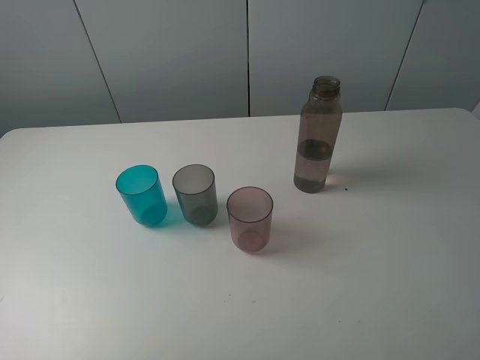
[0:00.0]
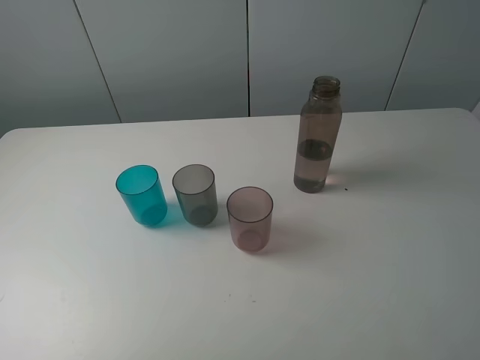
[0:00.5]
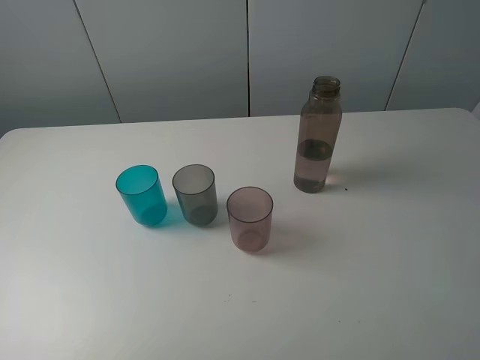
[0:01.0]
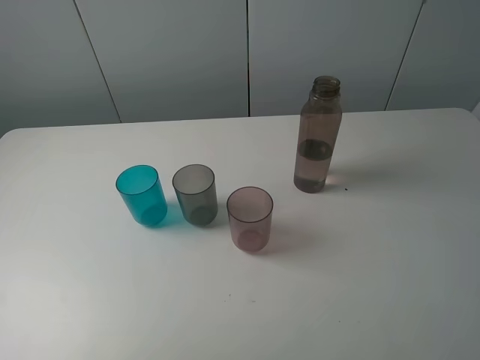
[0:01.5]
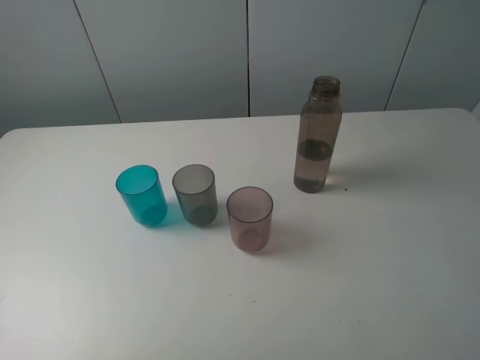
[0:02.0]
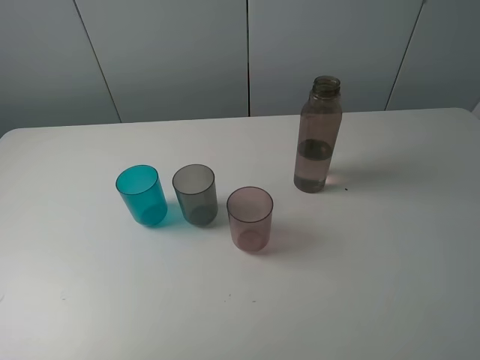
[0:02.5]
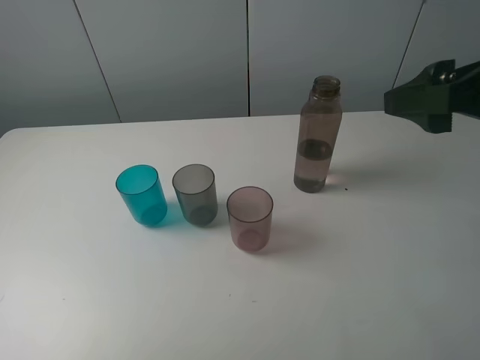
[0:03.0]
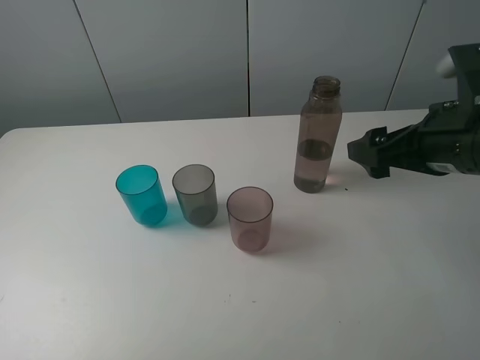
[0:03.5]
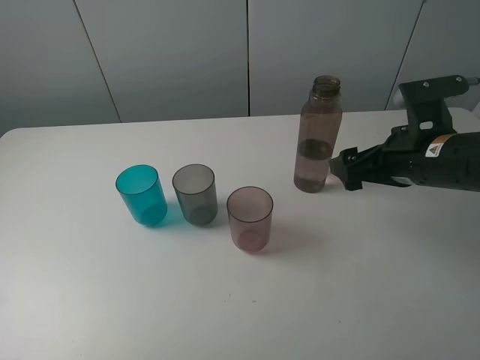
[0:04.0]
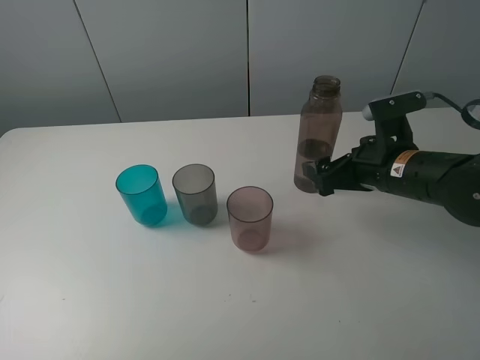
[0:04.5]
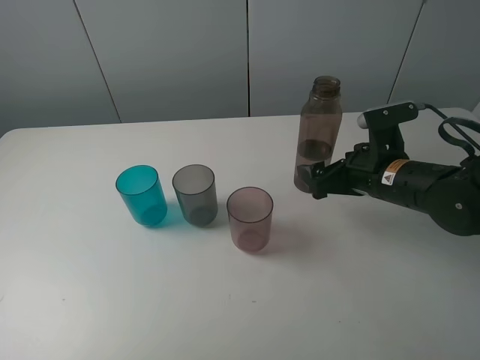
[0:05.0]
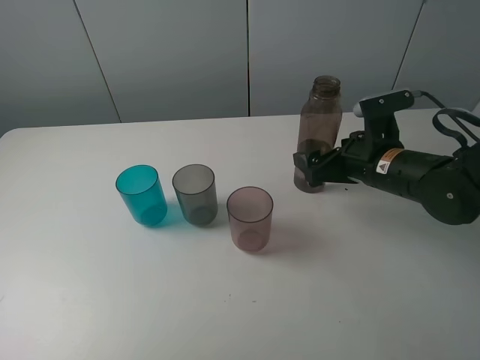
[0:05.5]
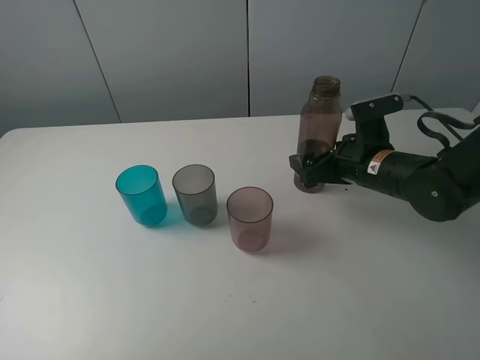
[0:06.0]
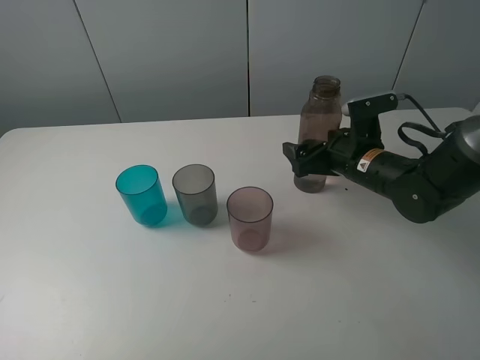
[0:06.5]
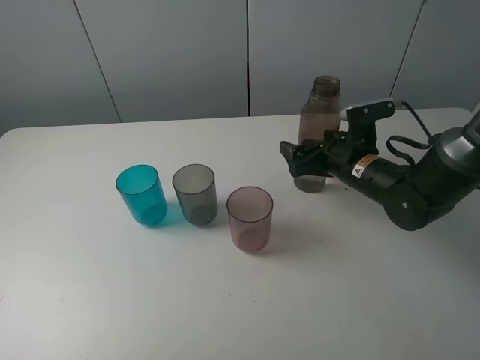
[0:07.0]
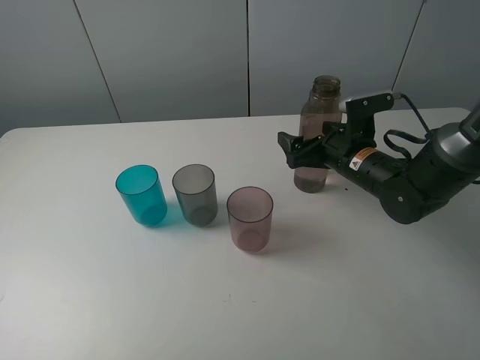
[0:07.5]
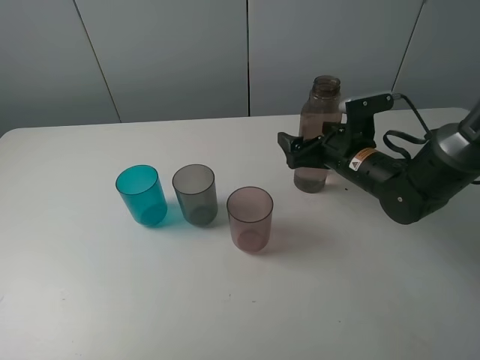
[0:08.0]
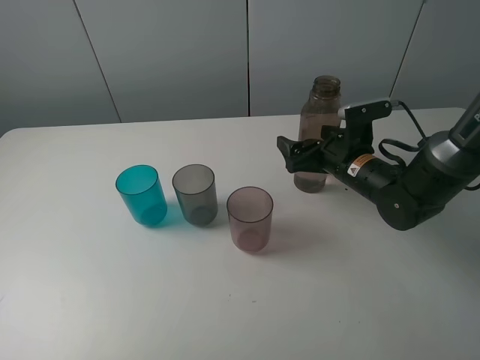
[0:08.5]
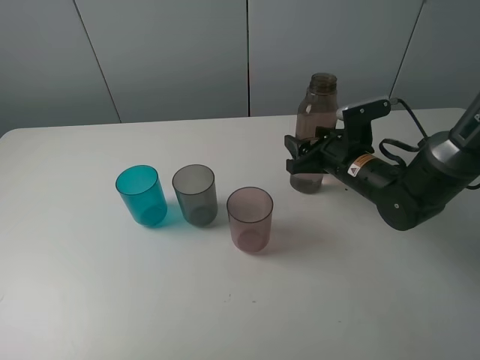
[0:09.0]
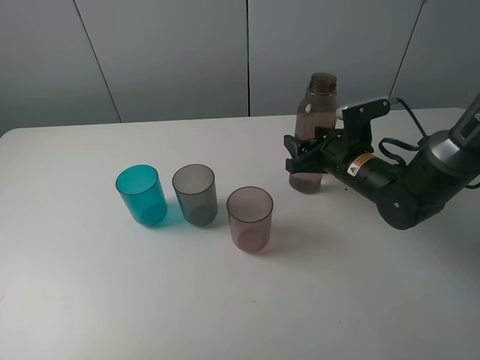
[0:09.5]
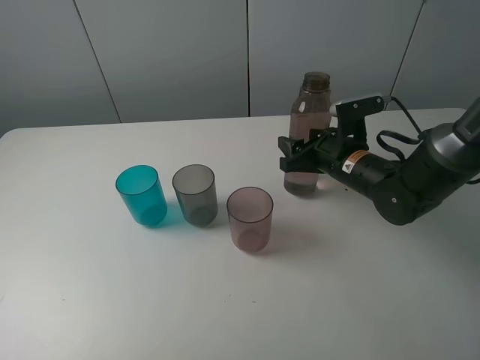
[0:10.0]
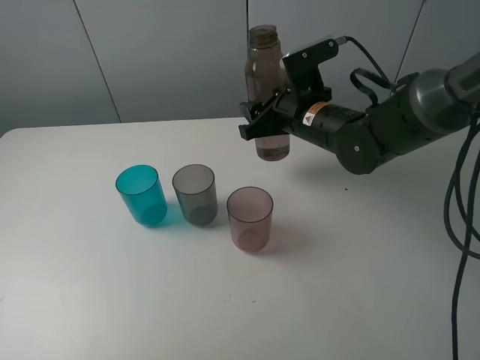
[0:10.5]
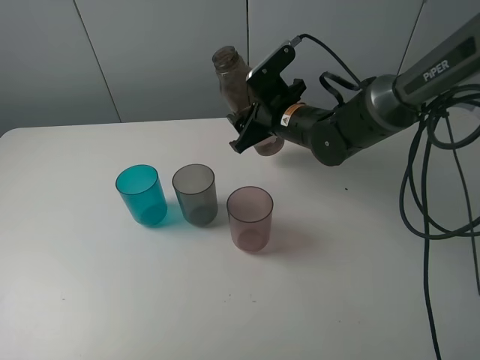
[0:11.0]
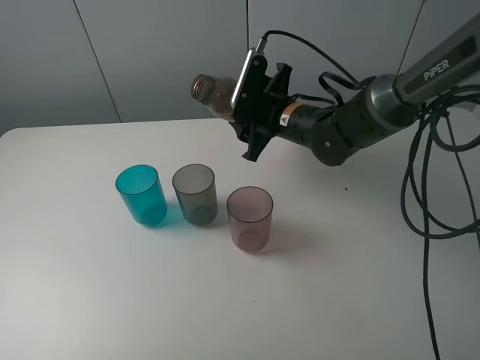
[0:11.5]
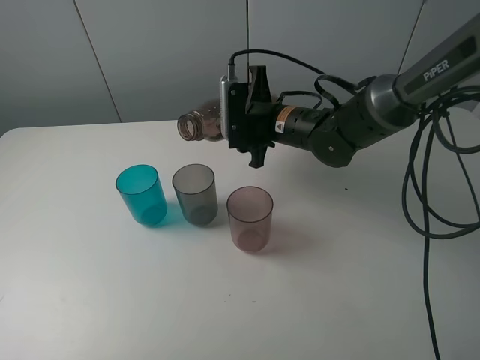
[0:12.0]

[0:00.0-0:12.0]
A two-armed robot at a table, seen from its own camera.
Task of the whole recording: pick up the bottle filled with water and pour water into the middle cup of the three cups.
Step, 0:00.0 to 0:09.5: Grasp the brown bottle with the right gripper.
0:02.0 to 0:04.0: The right gripper is displaced forward and downward by about 30 cm.
0:04.0 to 0:06.0: The right gripper moves downward and forward, some 10 cm.
0:06.0 to 0:08.0: The grippers stay close to where they were, moving slightly.
0:08.0 to 0:10.0: The right gripper closes its fingers.
0:10.0 to 0:12.0: The right gripper shifts approximately 10 cm to the left.

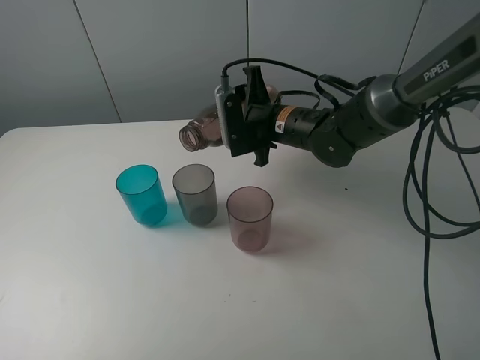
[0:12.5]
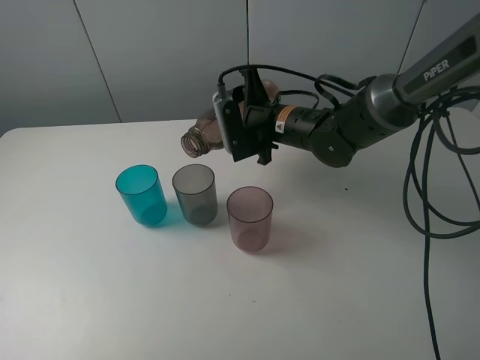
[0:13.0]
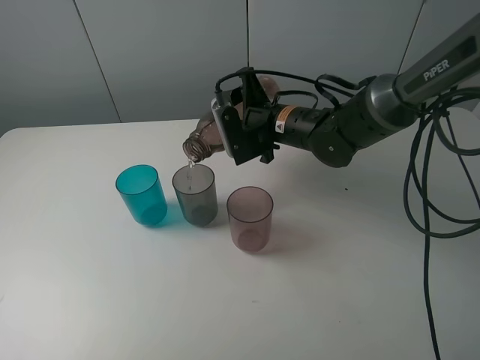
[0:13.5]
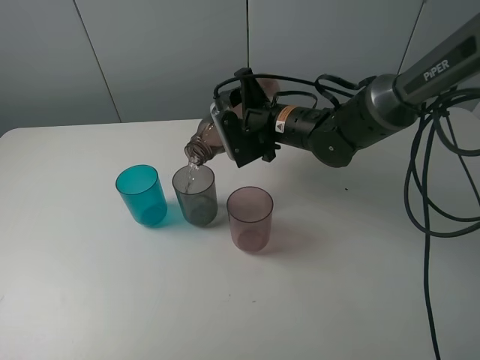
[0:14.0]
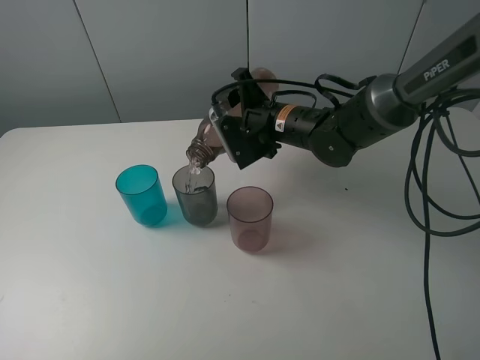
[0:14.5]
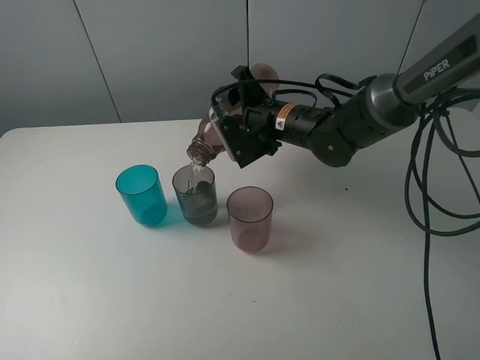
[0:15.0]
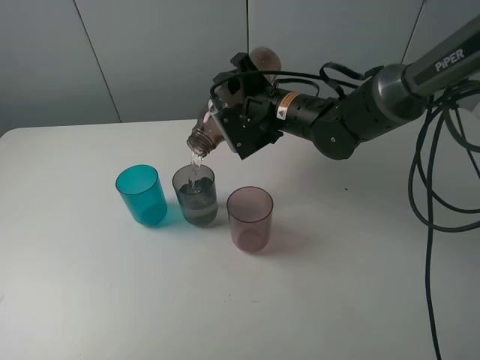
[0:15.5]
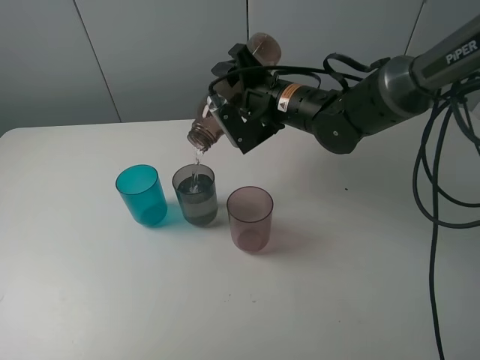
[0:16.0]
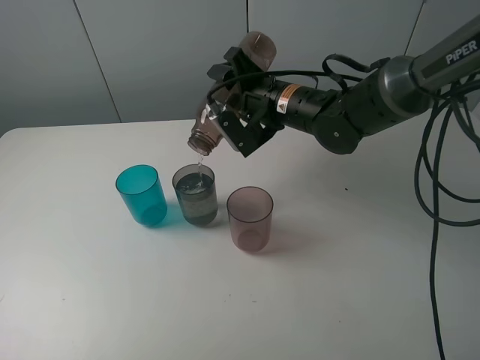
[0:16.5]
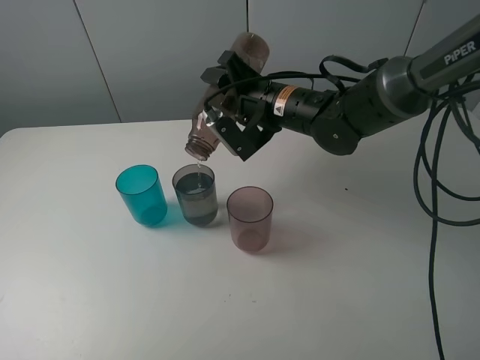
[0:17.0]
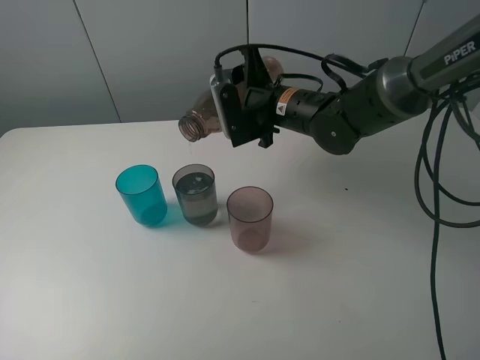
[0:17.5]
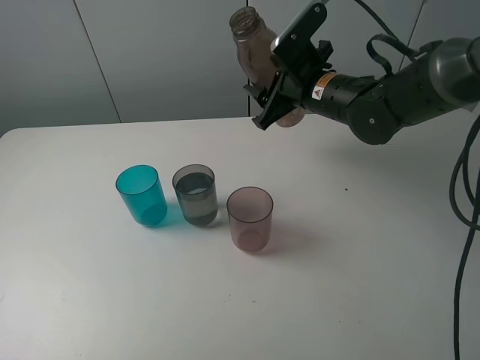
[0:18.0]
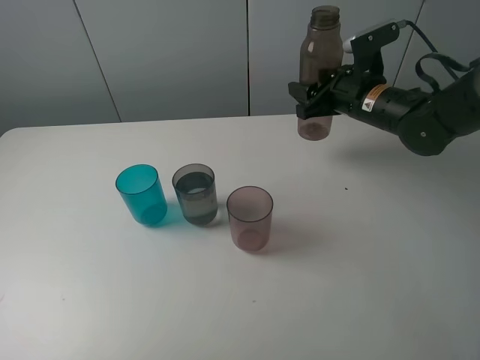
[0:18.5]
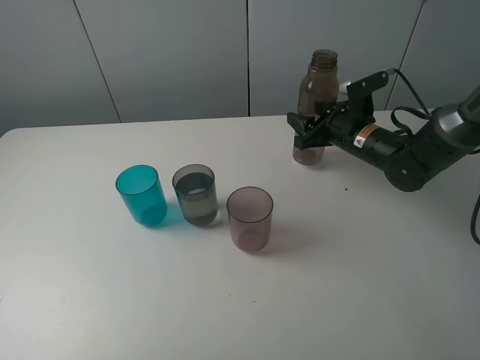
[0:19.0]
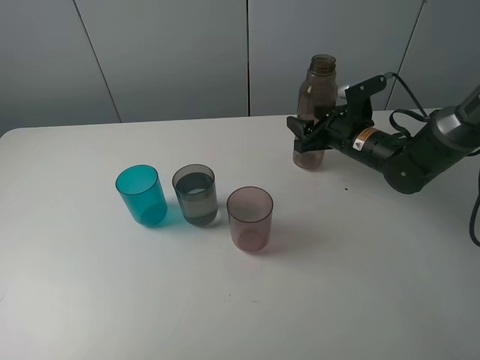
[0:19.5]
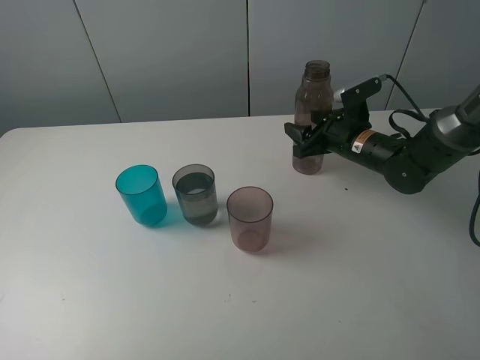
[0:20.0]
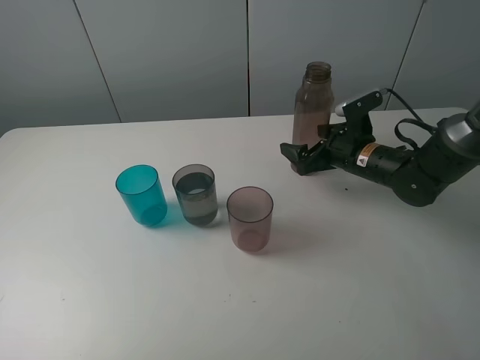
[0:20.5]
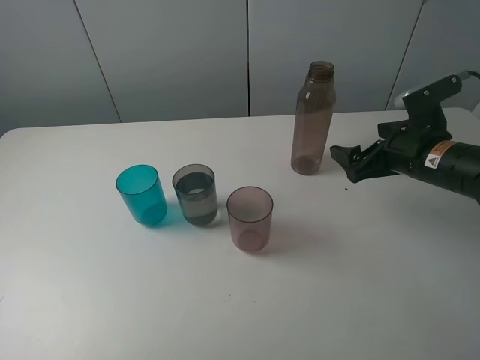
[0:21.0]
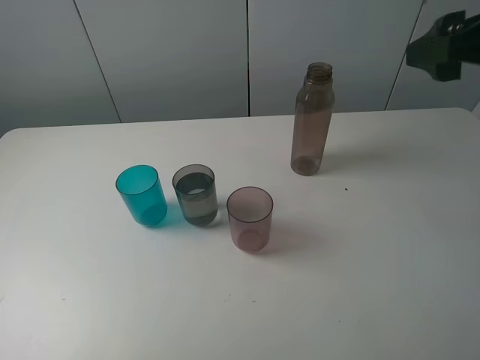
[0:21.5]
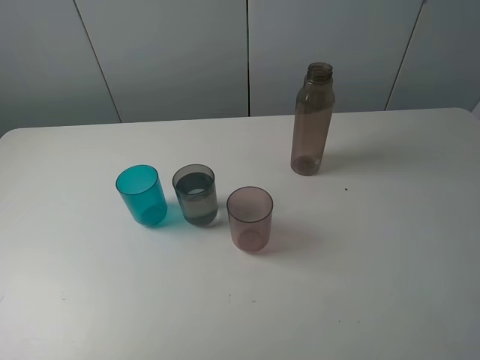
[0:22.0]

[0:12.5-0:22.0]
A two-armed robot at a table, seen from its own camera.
Task of the whole recording: pick up the bottle filled with water and pour water into the middle cup of the three cups.
Step, 0:12.5 to 0:18.0: Pour water from brown bottle to grey cup with the right gripper.
Step, 0:18.5 to 0:20.5: Place the brown bottle with the right gripper.
0:12.5 to 0:14.5: The grippers move only a little.
0:14.5 to 0:16.5: There are only small adjustments of the grippers.
0:16.5 to 0:18.0: The right gripper moves to the right, about 5 cm.
0:18.0 to 0:20.0: The right gripper is displaced downward and to the right by about 10 cm.
0:20.0 to 0:22.0: The right gripper shifts about 40 cm backward and upward, and opens.

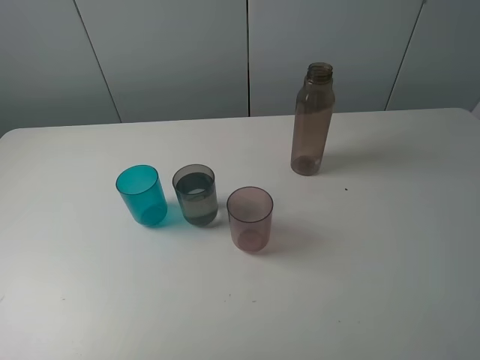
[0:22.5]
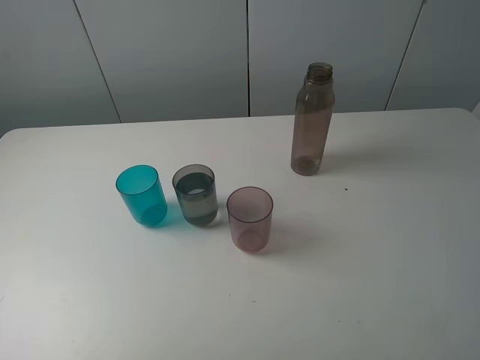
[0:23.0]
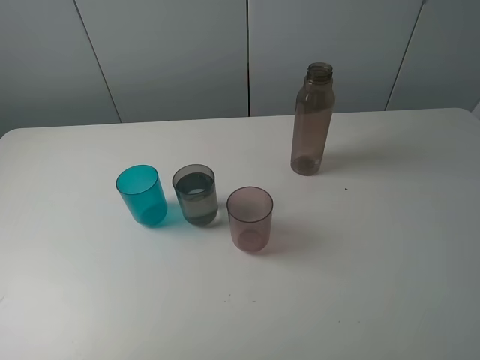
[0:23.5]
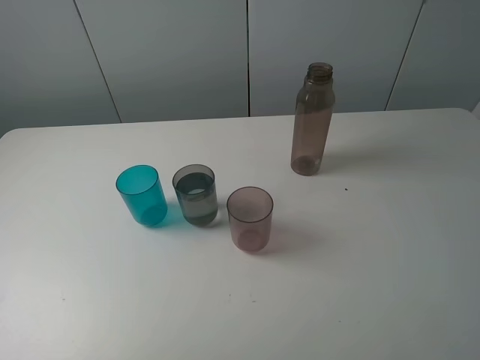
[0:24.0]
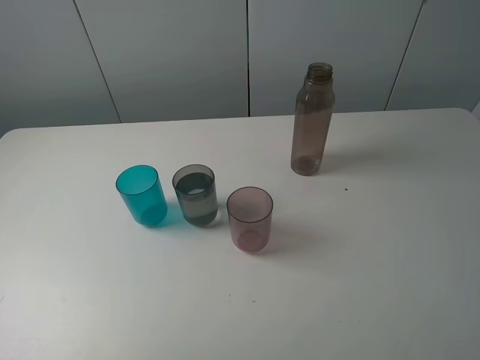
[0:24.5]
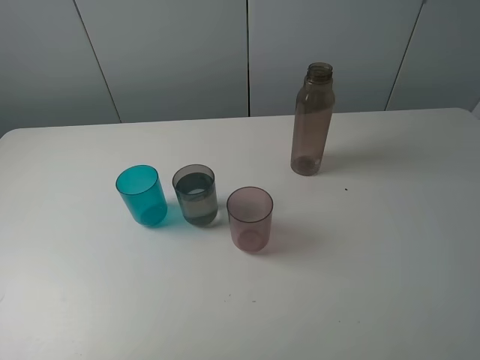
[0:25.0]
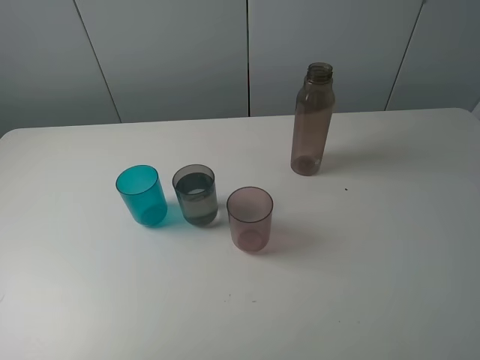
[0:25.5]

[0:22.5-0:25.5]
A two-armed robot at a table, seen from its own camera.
Task of the whole recording: pick up the bottle filled with water and pour water into the middle cup of the three cups.
0:24.0 to 0:25.5: The two grippers keep their place.

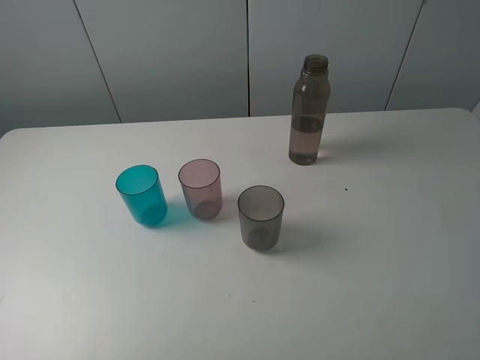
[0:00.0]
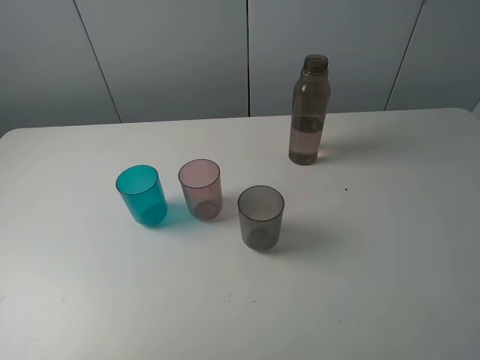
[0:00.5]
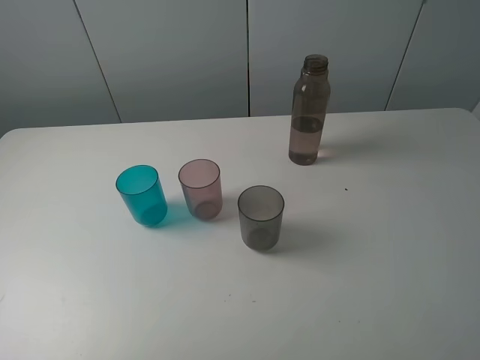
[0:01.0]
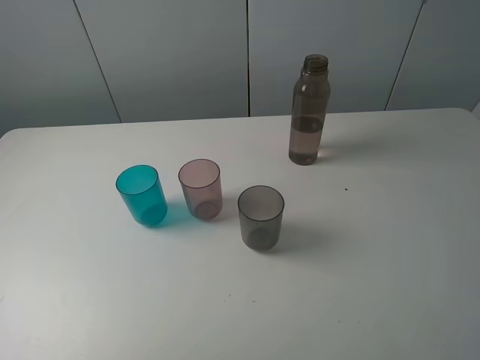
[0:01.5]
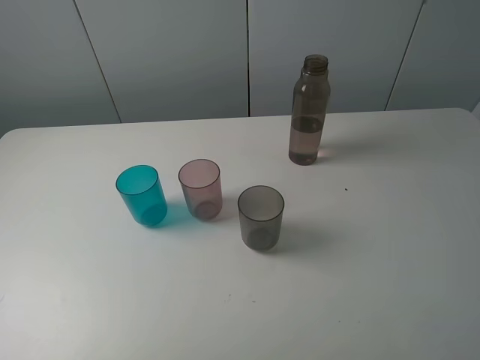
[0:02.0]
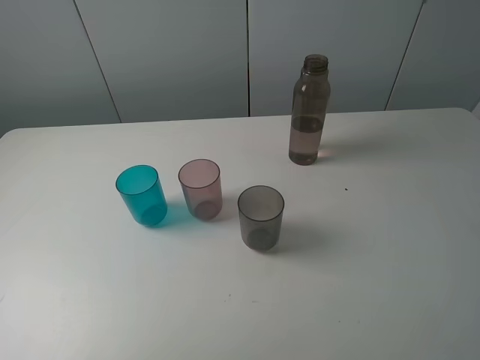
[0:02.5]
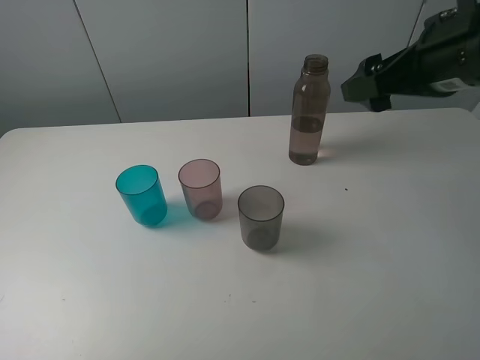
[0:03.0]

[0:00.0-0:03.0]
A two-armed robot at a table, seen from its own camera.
Task of the whole recording: pick up the bottle filled with water and pour water into the middle cup of the three cups.
0:00.0 to 0:01.5: Both grippers stay about where they are.
0:01.5 to 0:03.0: The right gripper moves forward, about 25 cm.
